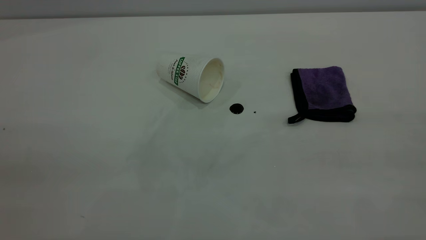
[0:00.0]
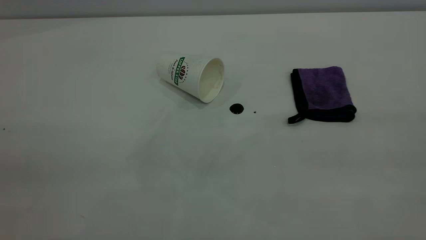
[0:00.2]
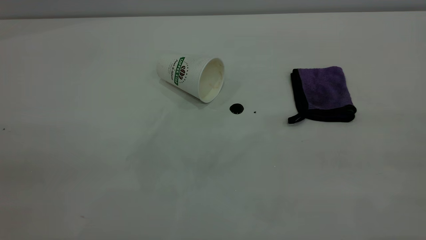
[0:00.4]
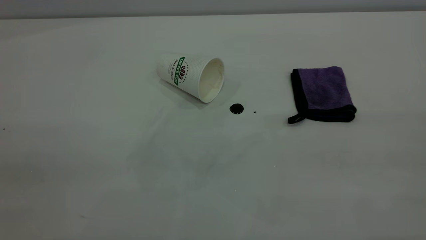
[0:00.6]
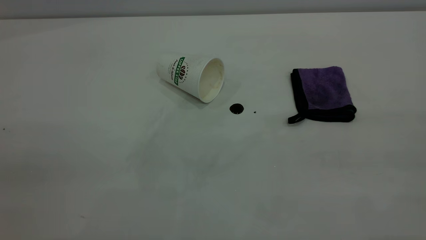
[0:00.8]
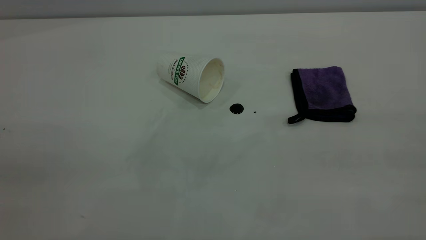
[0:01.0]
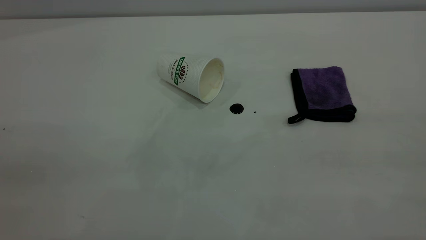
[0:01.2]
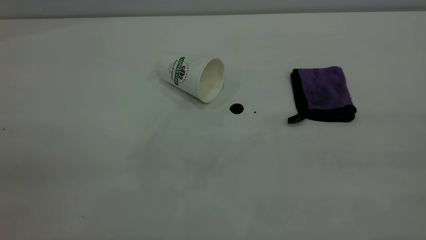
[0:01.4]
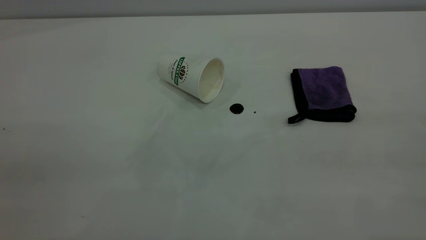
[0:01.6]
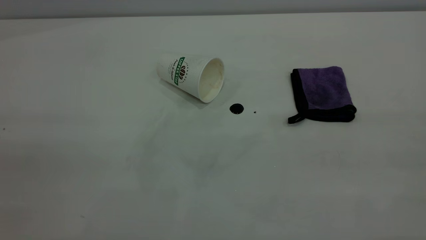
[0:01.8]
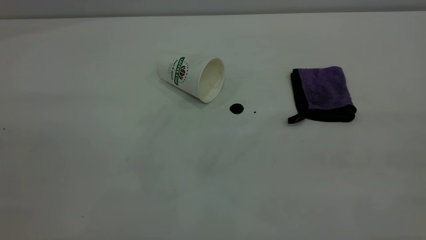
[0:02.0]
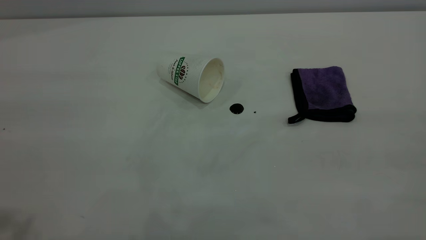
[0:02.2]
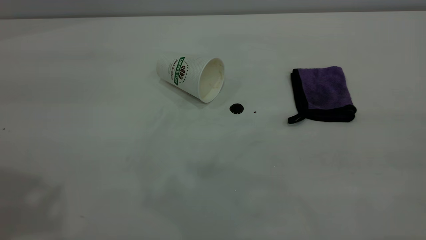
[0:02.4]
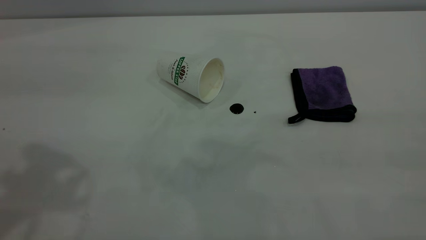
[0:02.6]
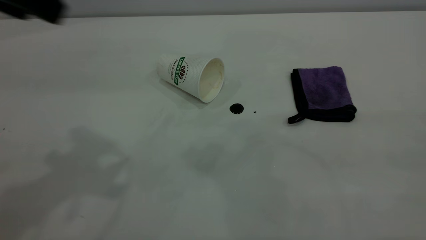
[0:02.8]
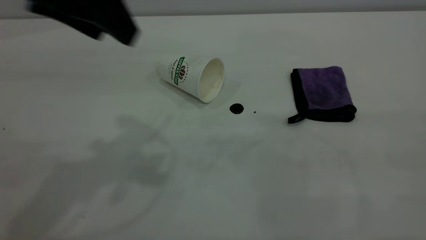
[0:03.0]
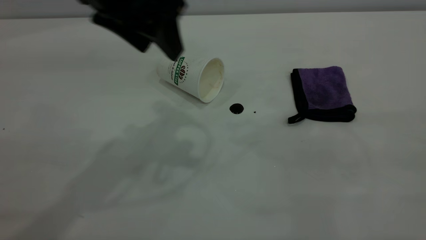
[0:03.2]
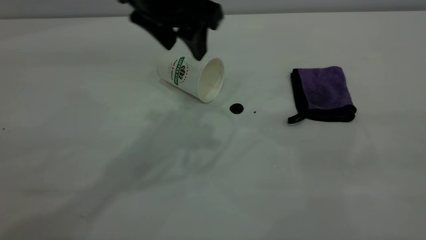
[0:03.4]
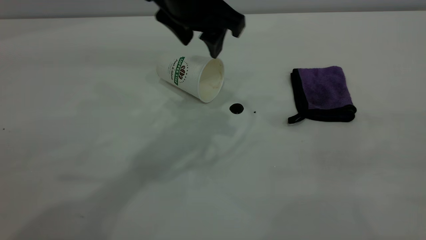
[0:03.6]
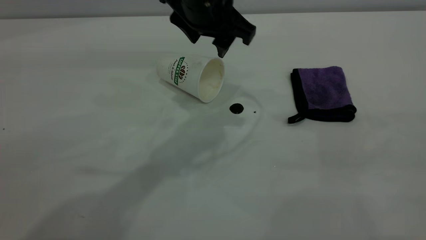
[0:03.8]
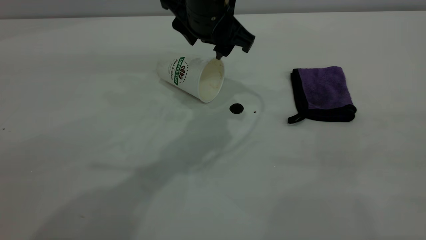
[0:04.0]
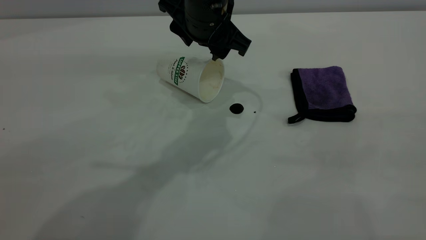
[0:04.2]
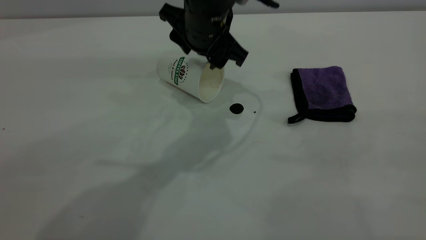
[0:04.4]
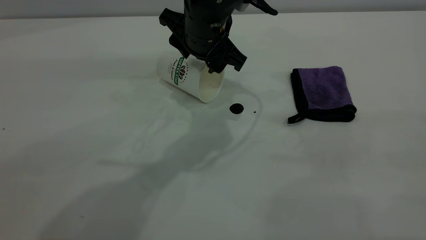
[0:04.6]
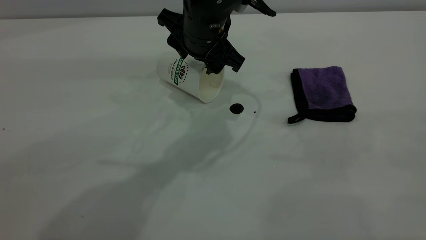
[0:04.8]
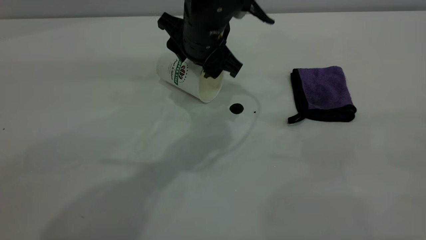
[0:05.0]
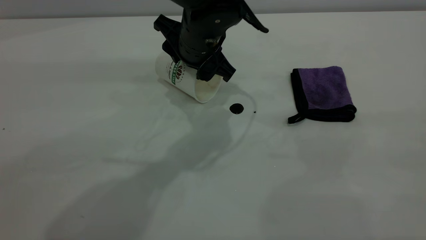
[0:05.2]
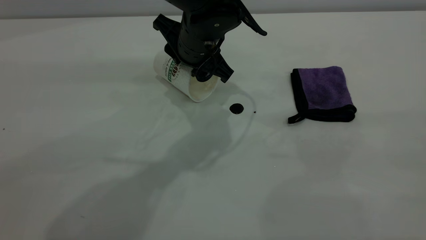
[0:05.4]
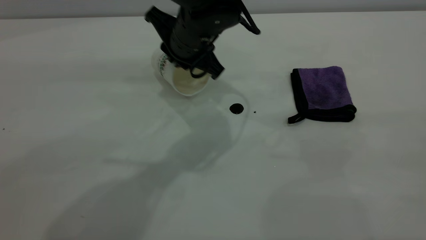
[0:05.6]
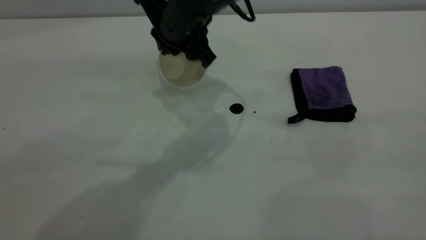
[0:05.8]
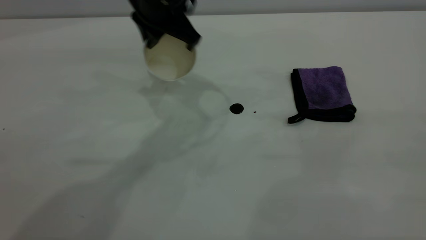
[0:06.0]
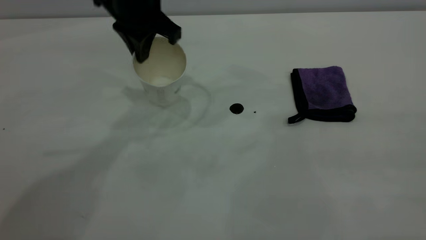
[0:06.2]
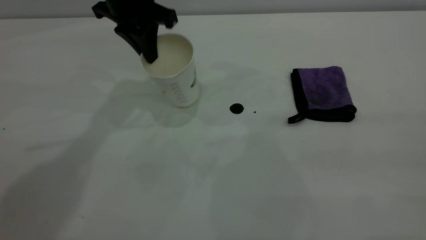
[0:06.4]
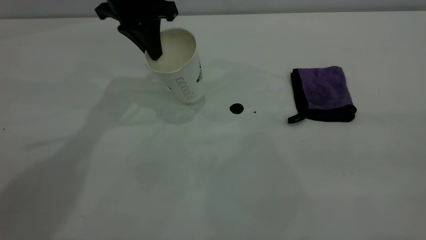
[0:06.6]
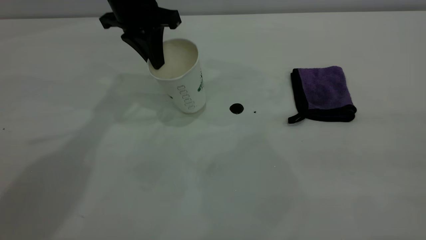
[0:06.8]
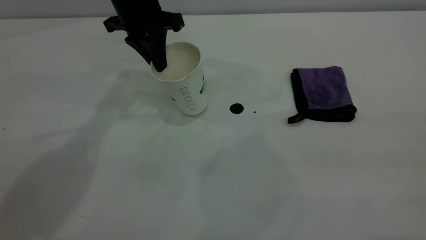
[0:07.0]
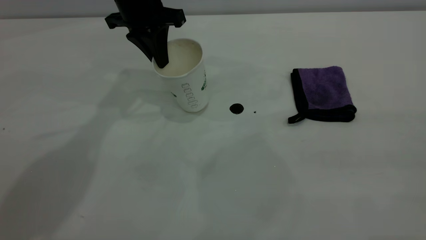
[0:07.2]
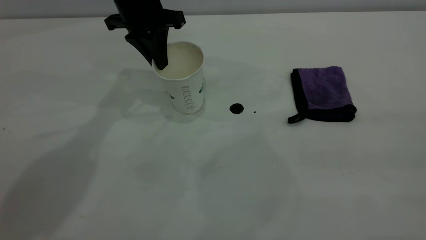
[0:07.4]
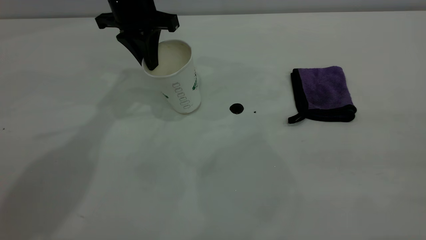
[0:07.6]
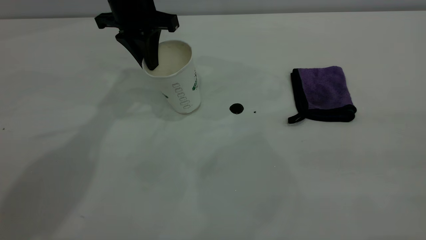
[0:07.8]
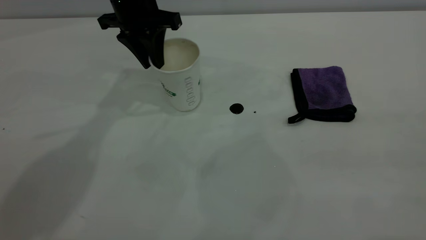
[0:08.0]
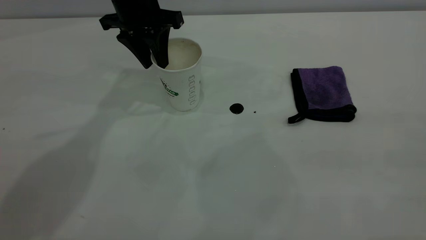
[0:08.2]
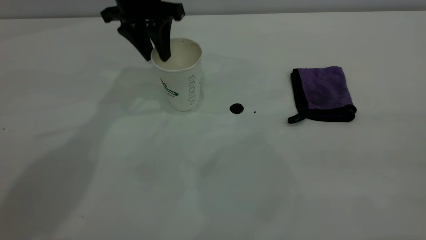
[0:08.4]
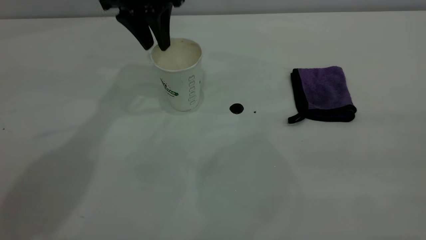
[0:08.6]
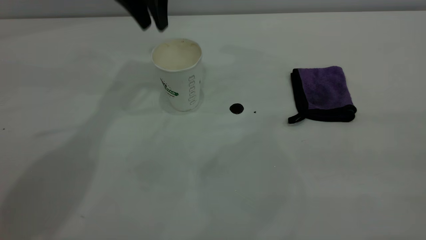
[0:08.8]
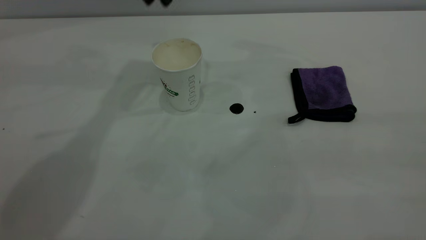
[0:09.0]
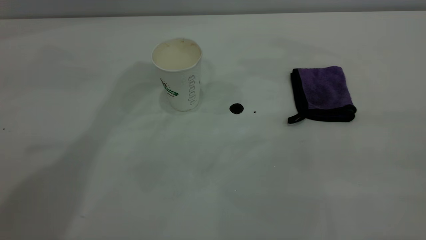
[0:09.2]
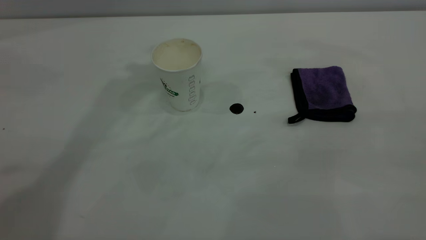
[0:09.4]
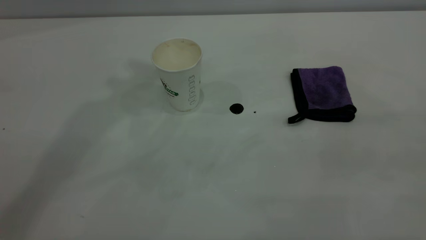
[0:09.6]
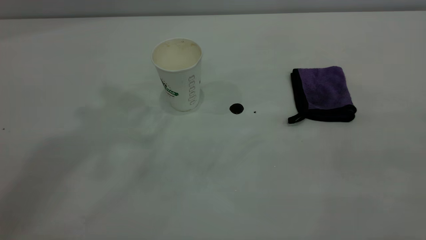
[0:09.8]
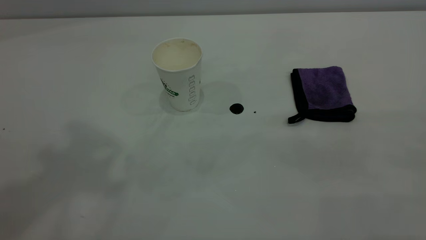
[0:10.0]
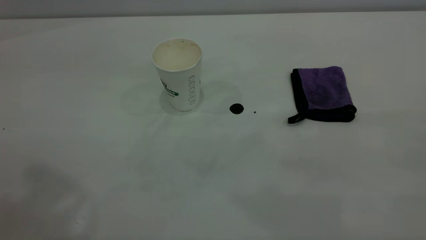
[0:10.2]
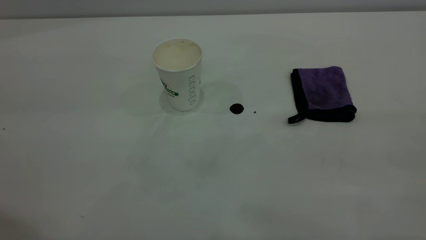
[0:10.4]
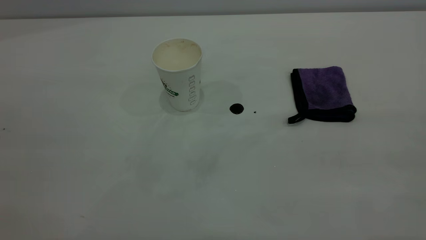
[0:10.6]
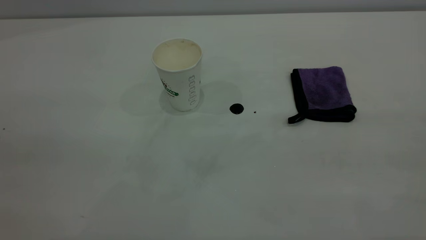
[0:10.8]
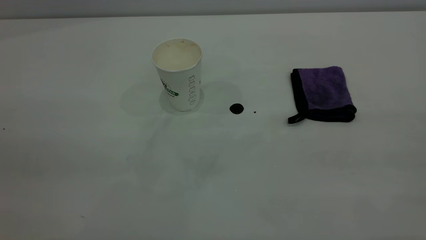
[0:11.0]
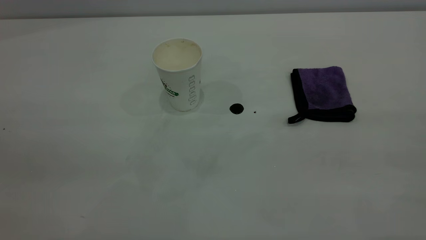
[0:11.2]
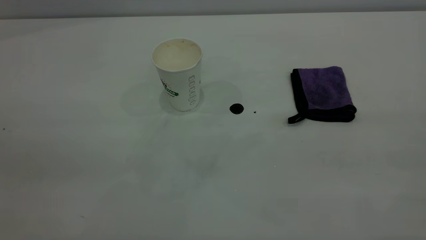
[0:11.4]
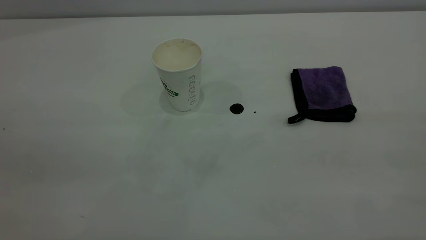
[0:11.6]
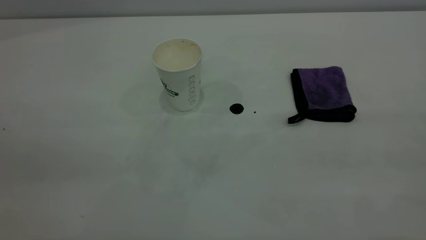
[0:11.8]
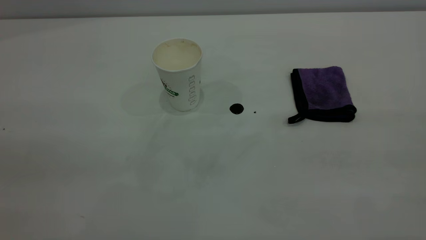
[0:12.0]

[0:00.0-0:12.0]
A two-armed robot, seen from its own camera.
Task of the whole recording: the left gripper pick up the fallen cup and place it upright, the right gripper grasp the purple rag and wipe the coffee stain on the table, the right gripper put the purple rag back in its original position.
Step, 0:00.0 to 0:08.6: Stand the paper cup upright.
0:00.0 to 0:01.6: Both grippers stay about where they are.
0:01.6 to 0:03.0: The left gripper shifts approximately 30 cm forward and to the right.
0:03.0 to 0:04.4: The left gripper moves downward, to the right and forward, roughly 25 cm.
0:04.4 to 0:06.0: The left gripper moves to the left and upward, approximately 10 cm, and closes its fingers.
0:06.0 to 0:07.6: The left gripper shifts about 10 cm to the left and forward.
0:07.6 to 0:09.0: The left gripper heads upward, covering roughly 10 cm, and opens its fingers.

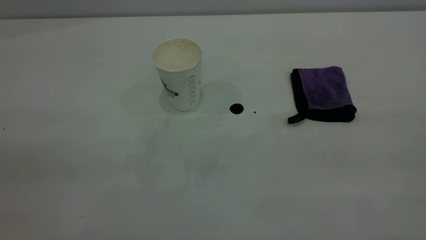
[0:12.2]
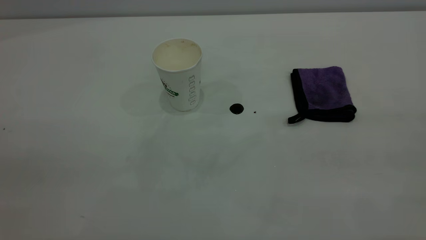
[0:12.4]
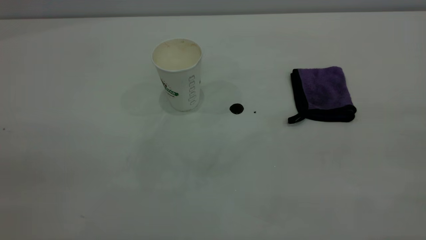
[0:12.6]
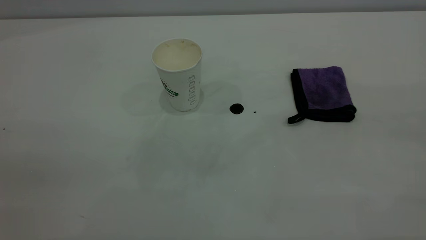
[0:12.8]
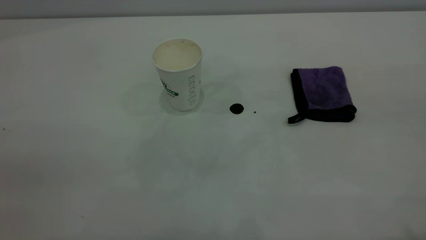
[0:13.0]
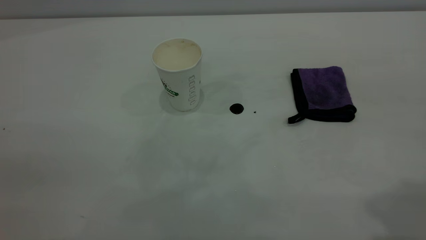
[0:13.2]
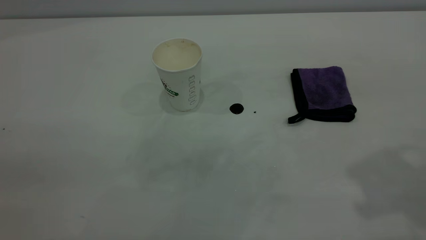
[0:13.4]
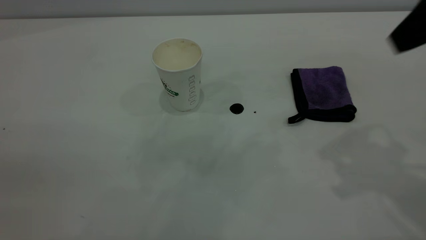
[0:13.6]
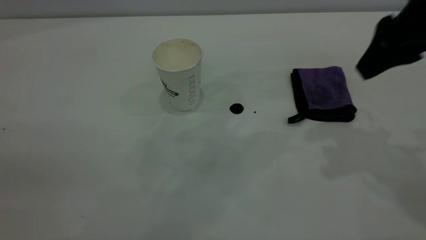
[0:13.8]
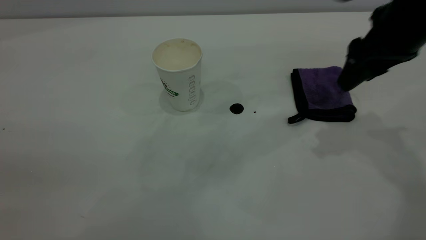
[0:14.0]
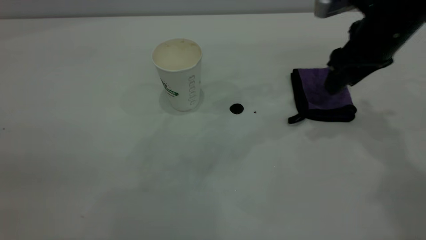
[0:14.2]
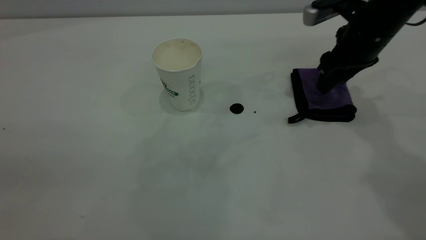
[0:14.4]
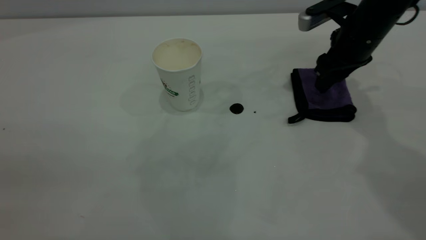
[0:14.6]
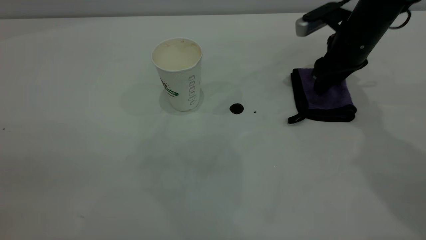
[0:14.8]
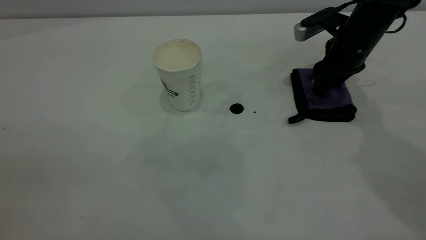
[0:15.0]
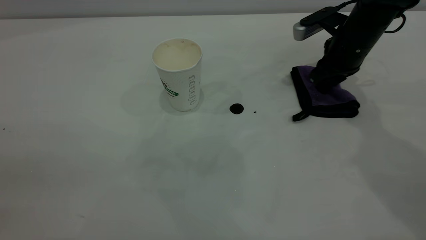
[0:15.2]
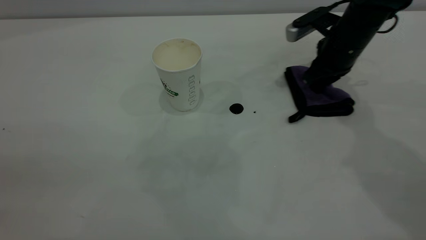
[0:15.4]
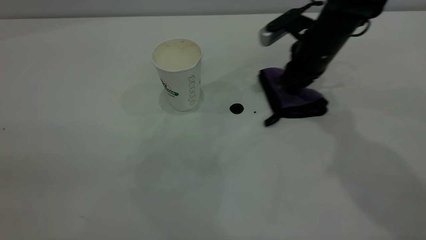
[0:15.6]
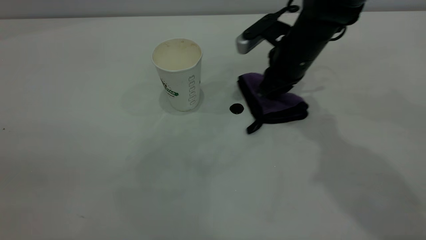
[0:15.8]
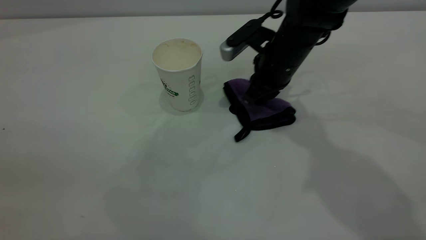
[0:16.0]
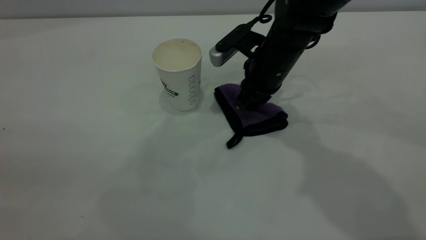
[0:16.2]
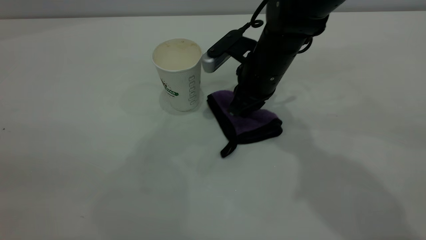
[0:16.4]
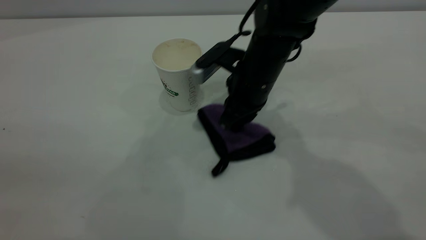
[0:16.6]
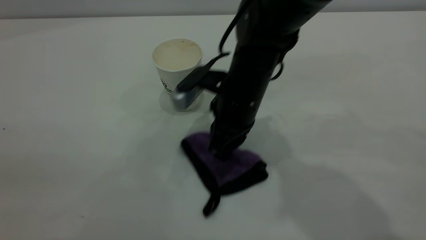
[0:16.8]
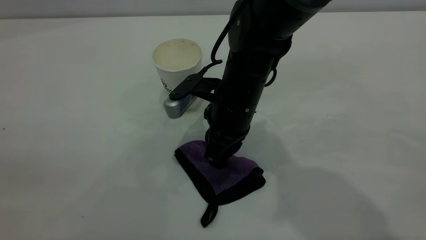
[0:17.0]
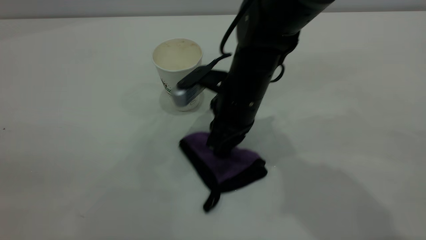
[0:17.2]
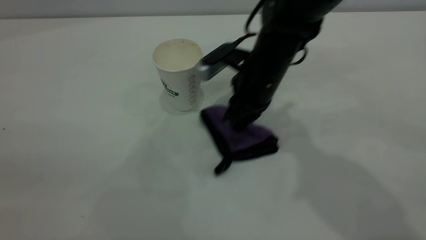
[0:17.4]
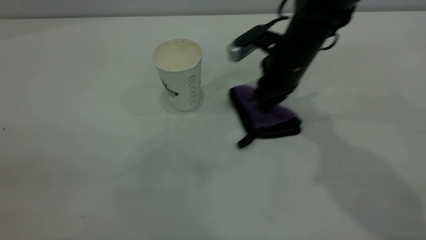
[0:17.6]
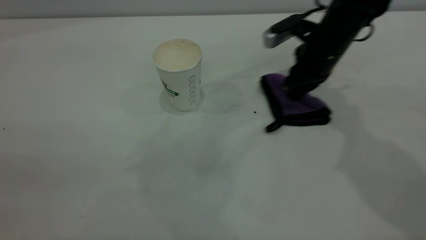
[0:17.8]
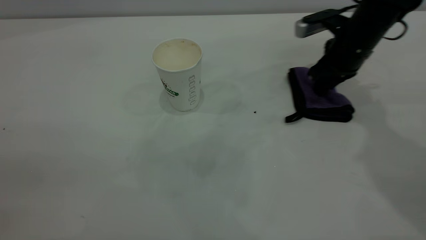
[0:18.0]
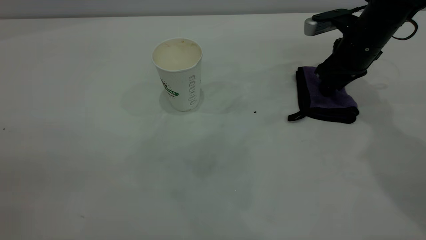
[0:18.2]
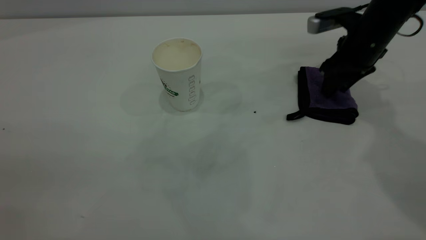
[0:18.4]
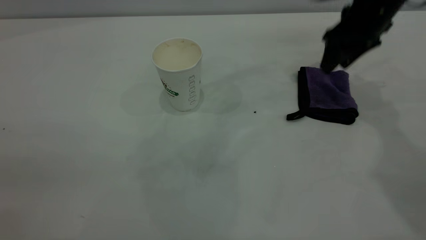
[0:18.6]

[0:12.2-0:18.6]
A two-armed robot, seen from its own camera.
Task of the whole recording: the left gripper pick up the fallen cup and place it upright, the right gripper grasp the purple rag and wipe the coffee stain on the table, the right gripper put the purple rag back in its original position.
Step, 0:12.2 to 0:18.6: Wipe the stains off the table with a rag.
0:12.2 to 0:13.8: The right gripper heads forward and downward, covering approximately 35 cm.
0:13.8 to 0:15.4: The right gripper heads downward and forward, covering roughly 20 cm, and closes its fingers.
0:15.4 to 0:17.0: The right gripper goes approximately 20 cm to the left and backward.
0:17.0 to 0:18.6: The right gripper shifts roughly 25 cm to the right, forward and upward, and opens up.
